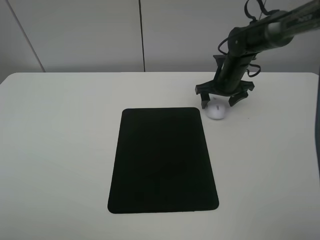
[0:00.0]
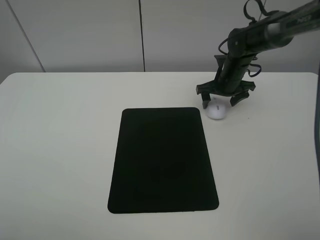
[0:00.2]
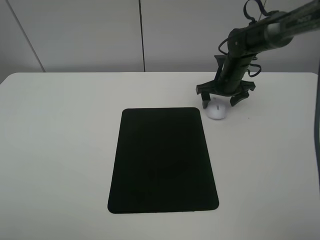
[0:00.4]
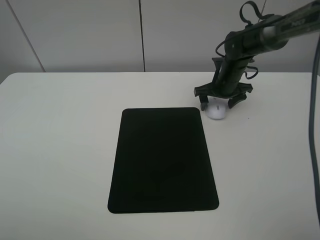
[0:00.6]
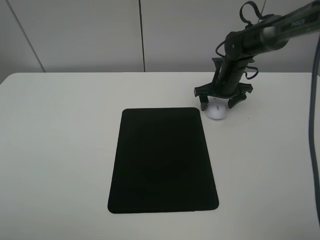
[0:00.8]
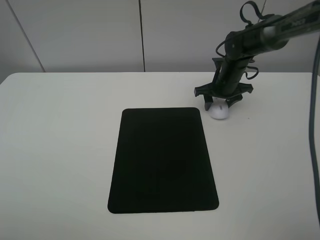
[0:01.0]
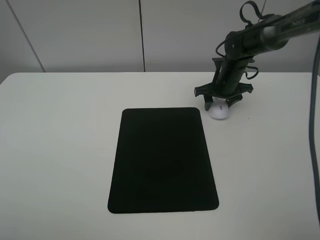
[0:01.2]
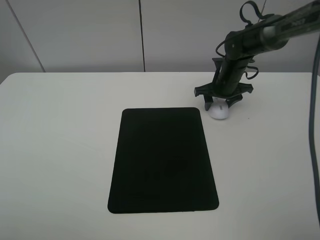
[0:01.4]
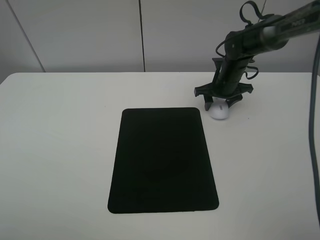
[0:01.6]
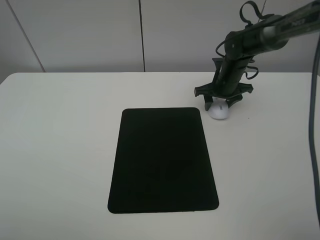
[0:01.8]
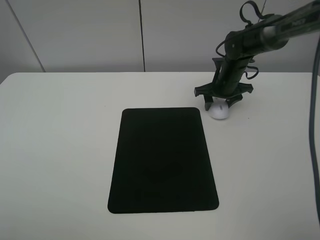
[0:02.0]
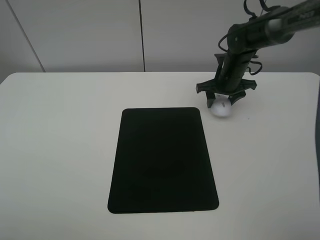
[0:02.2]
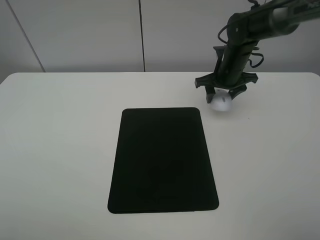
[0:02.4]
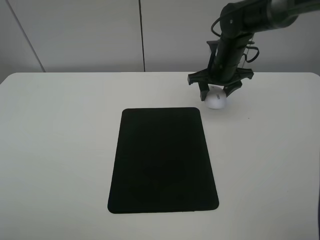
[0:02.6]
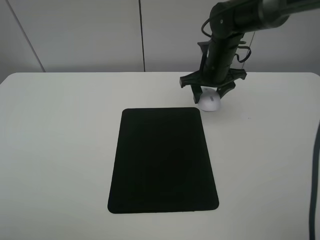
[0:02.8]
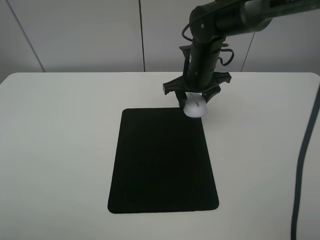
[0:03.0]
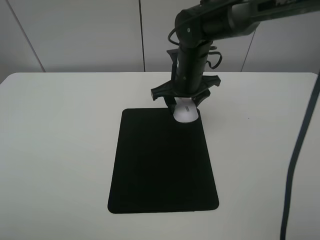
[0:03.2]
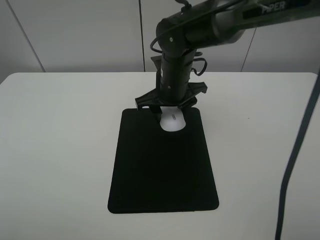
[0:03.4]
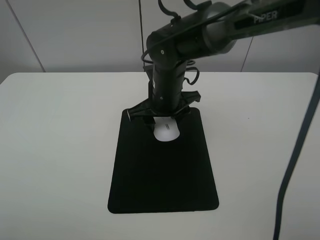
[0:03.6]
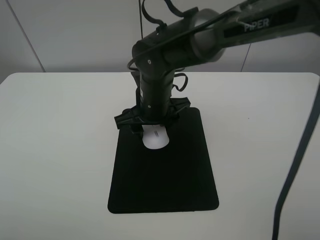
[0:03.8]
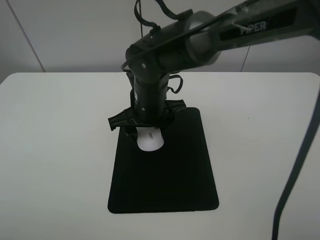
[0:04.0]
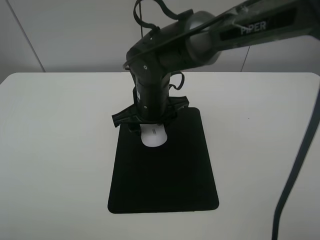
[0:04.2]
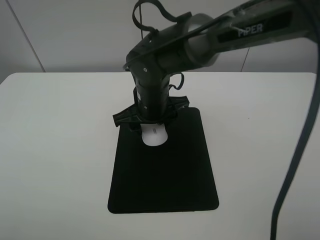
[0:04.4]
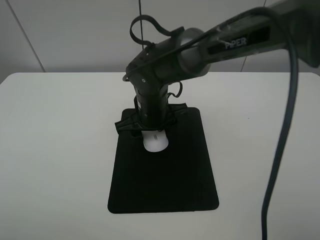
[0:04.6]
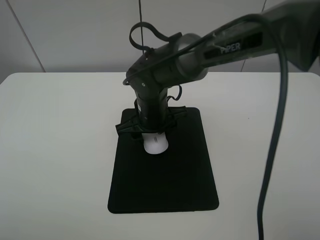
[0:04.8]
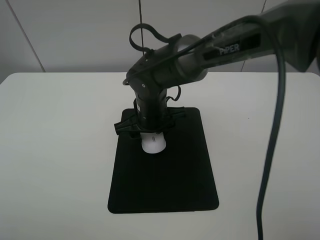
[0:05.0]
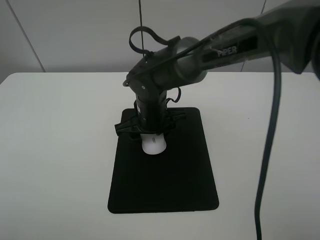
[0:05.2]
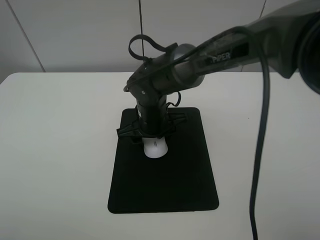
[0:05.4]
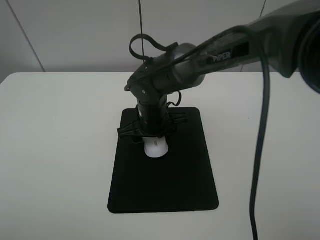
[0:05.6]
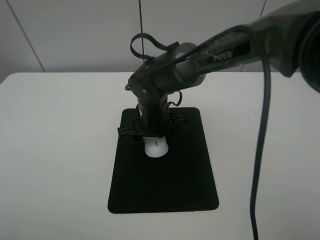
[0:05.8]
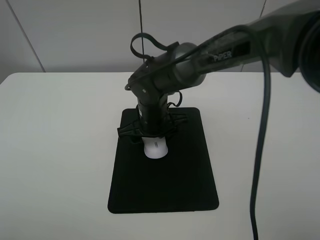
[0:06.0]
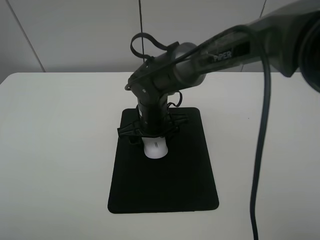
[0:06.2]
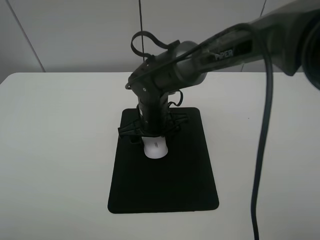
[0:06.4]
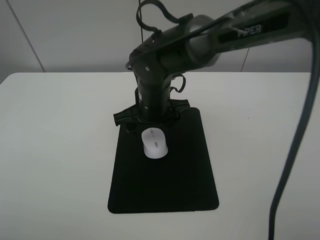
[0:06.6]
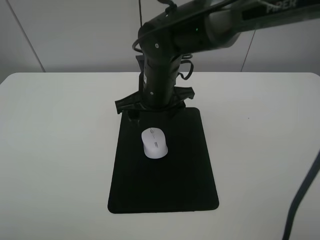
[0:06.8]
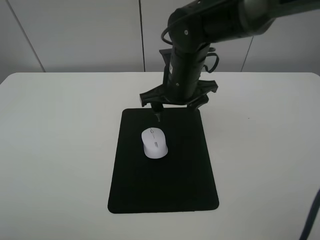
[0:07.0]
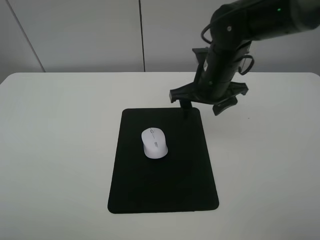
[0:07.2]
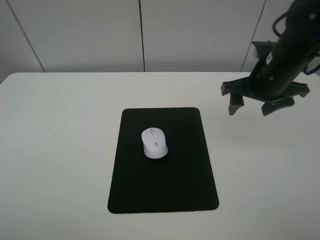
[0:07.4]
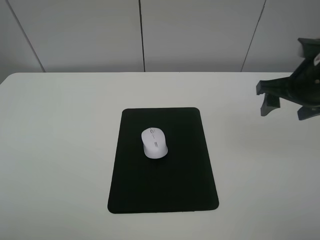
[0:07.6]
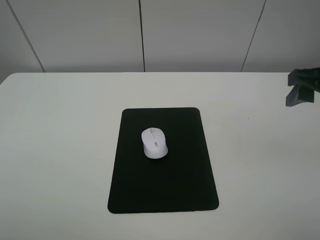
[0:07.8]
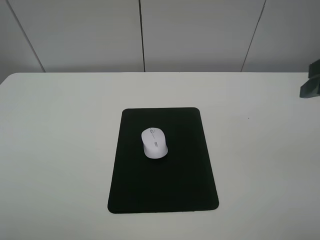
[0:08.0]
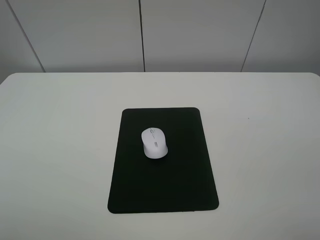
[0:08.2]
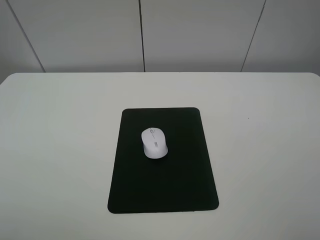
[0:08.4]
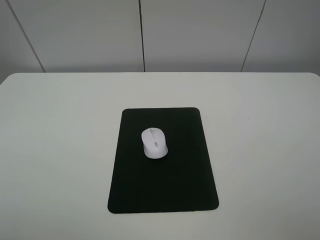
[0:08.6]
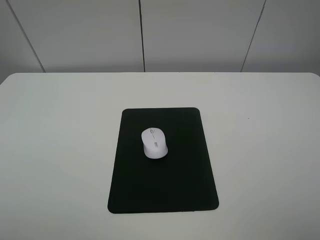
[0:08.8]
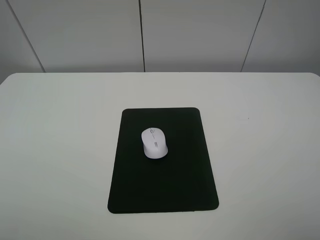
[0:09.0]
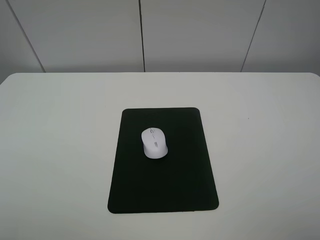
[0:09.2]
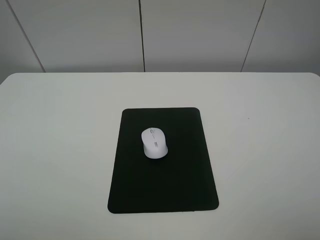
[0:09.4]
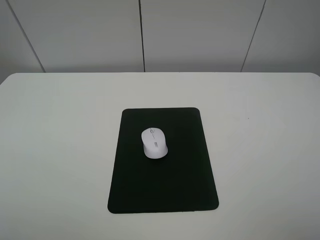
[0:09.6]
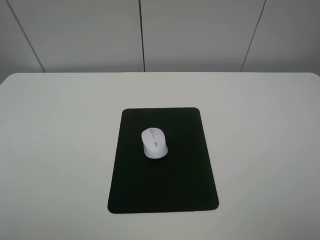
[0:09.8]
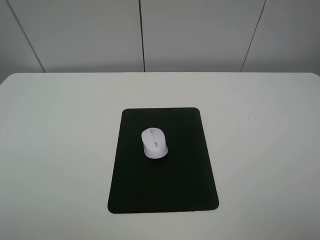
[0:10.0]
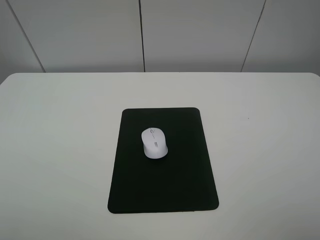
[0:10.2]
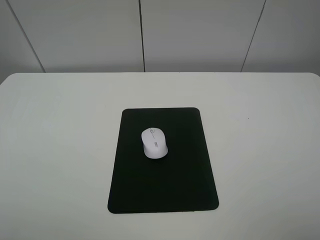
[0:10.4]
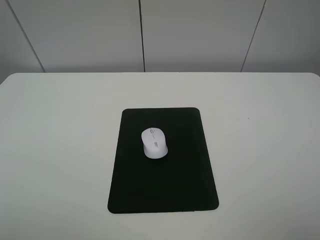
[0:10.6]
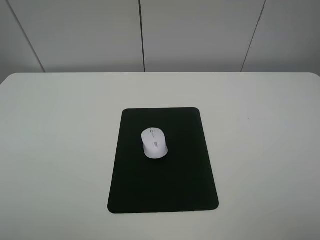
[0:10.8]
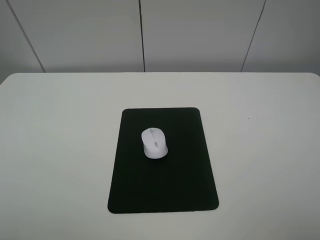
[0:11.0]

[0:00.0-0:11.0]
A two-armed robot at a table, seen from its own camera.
Step, 0:00.0 to 0:02.0: Grasp the mouse with the right gripper.
Step, 0:02.2 to 0:06.0: Place the mouse on the mouse mat with the right gripper.
0:00.0 to 0:01.6: The right gripper closes up.
0:01.6 to 0:03.2: The right gripper moves to the left, backward and upward, some 15 cm.
0:03.2 to 0:04.8: The right gripper moves to the left and backward, roughly 10 cm.
0:04.8 to 0:06.2: The right gripper opens up.
0:06.2 to 0:07.8: The right gripper moves to the right and upward, about 35 cm.
0:07.8 to 0:09.4: The right gripper moves backward, roughly 20 cm.

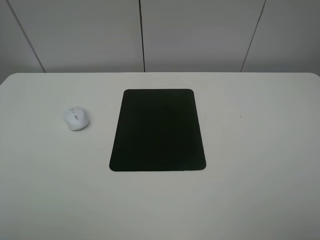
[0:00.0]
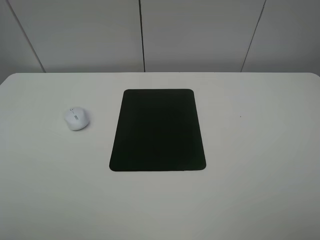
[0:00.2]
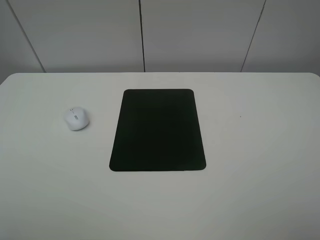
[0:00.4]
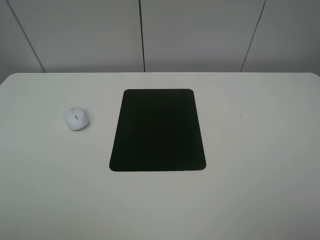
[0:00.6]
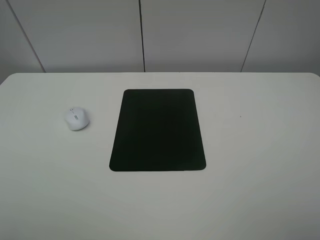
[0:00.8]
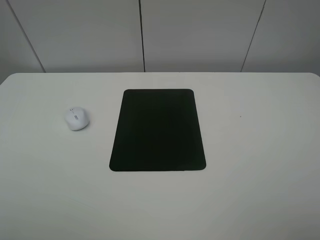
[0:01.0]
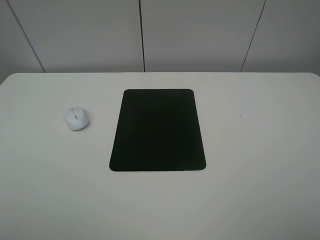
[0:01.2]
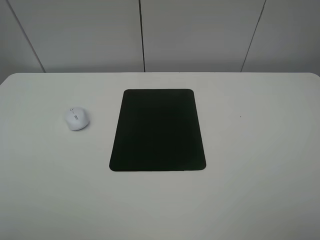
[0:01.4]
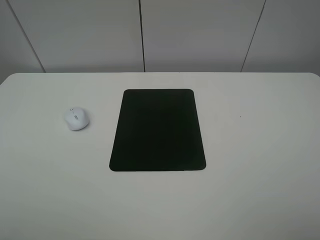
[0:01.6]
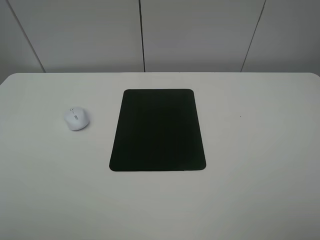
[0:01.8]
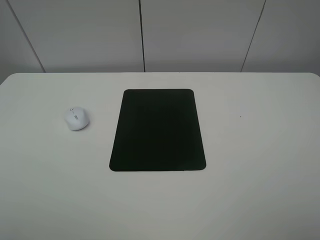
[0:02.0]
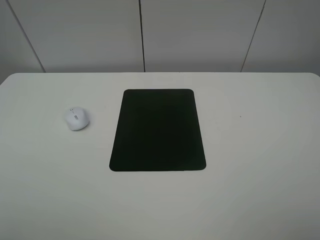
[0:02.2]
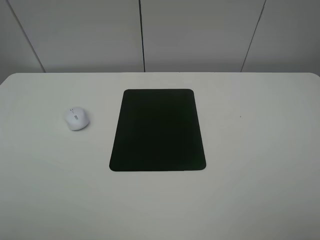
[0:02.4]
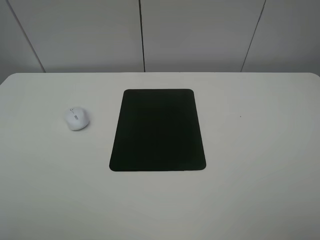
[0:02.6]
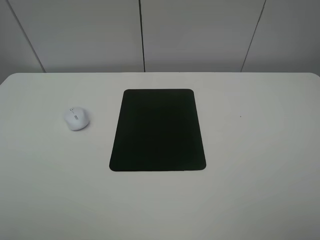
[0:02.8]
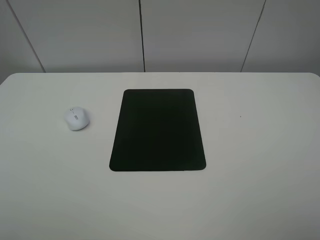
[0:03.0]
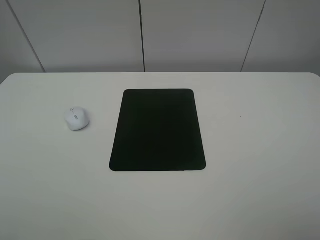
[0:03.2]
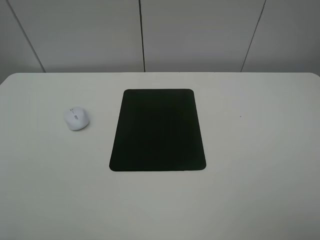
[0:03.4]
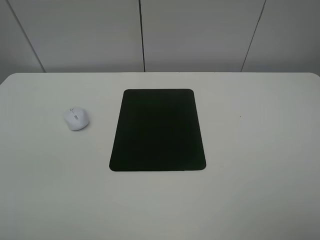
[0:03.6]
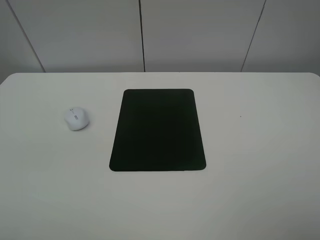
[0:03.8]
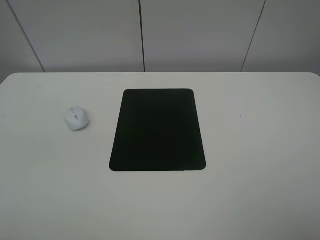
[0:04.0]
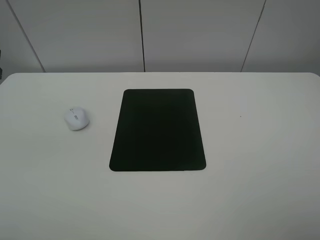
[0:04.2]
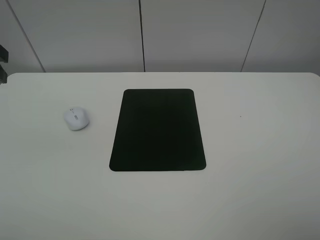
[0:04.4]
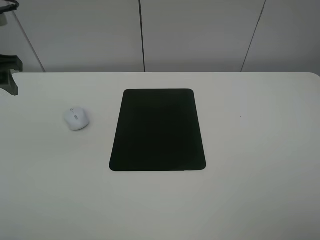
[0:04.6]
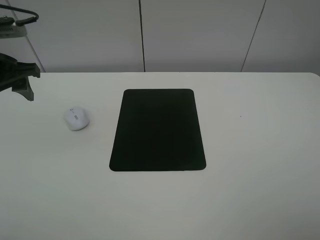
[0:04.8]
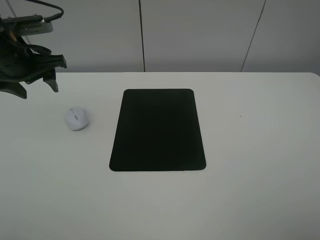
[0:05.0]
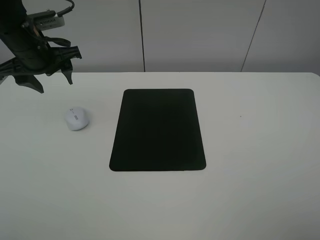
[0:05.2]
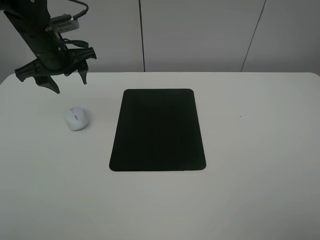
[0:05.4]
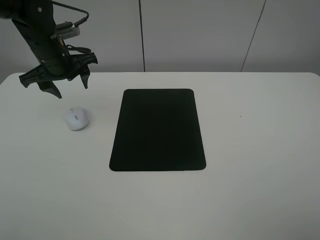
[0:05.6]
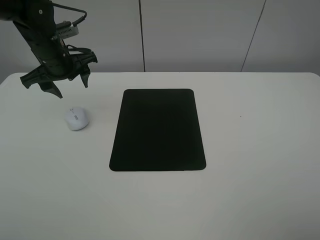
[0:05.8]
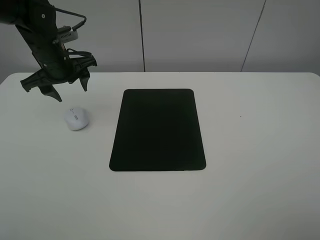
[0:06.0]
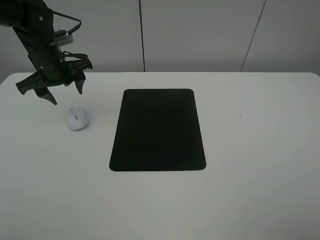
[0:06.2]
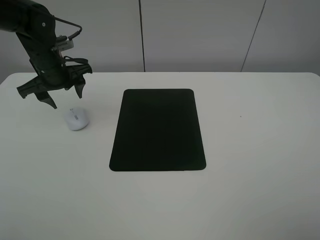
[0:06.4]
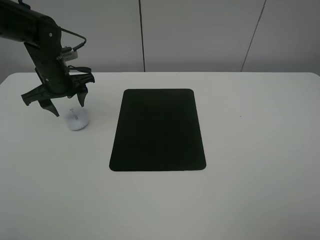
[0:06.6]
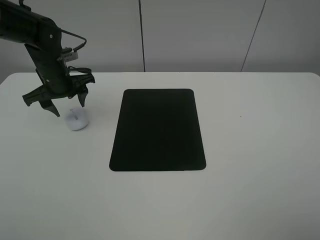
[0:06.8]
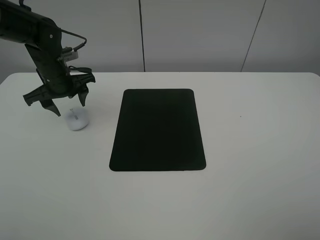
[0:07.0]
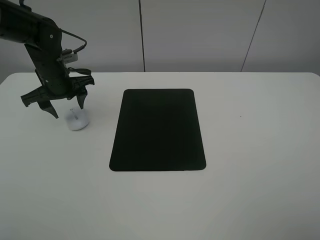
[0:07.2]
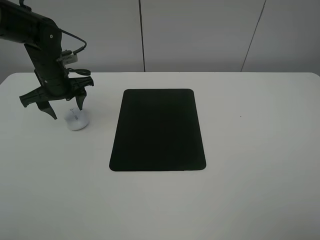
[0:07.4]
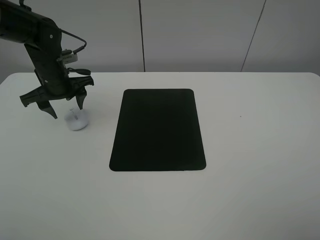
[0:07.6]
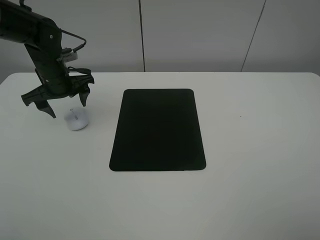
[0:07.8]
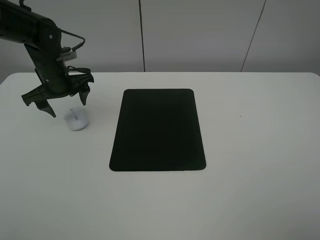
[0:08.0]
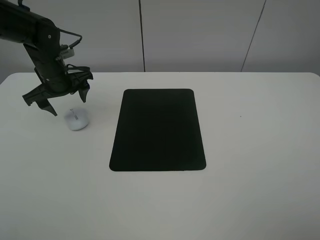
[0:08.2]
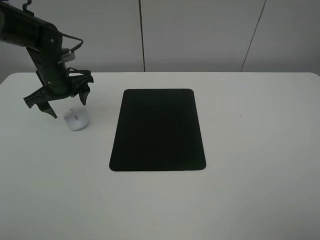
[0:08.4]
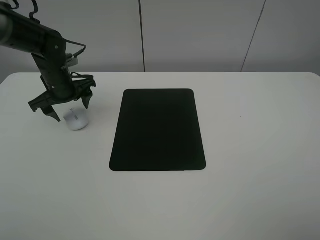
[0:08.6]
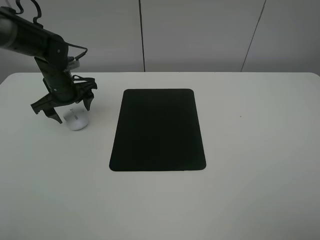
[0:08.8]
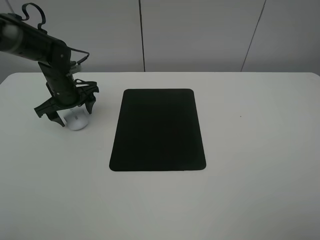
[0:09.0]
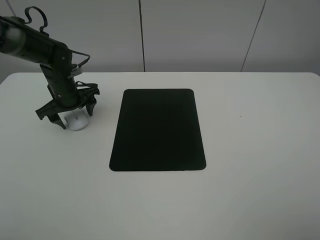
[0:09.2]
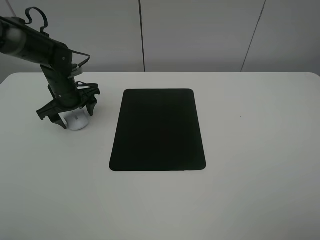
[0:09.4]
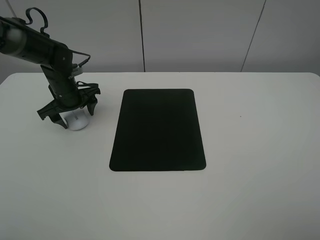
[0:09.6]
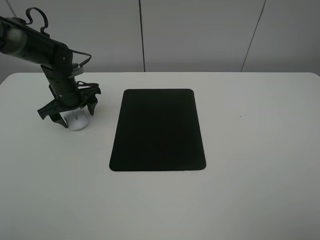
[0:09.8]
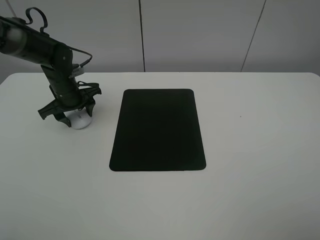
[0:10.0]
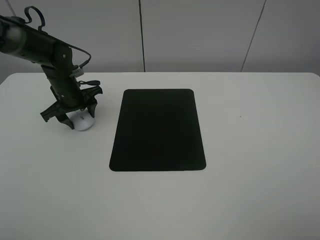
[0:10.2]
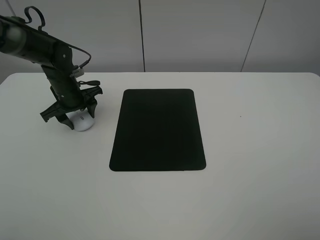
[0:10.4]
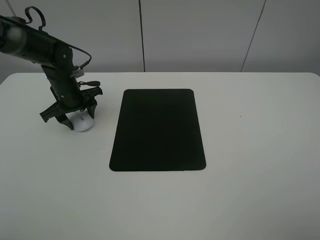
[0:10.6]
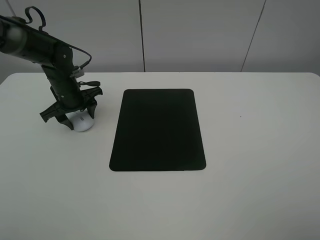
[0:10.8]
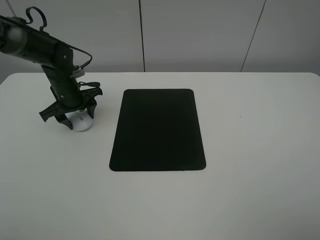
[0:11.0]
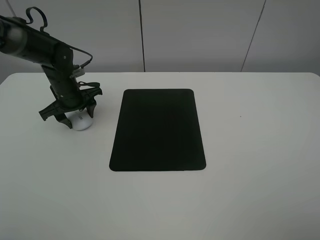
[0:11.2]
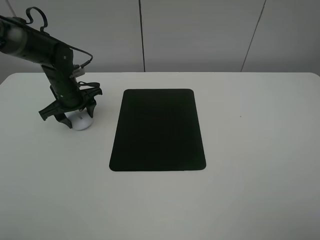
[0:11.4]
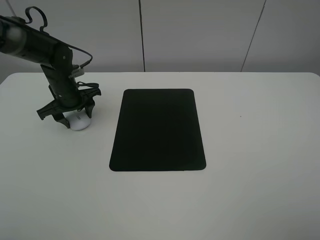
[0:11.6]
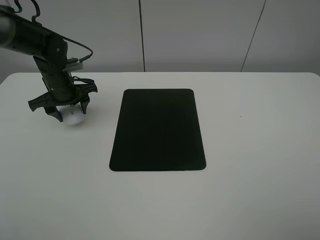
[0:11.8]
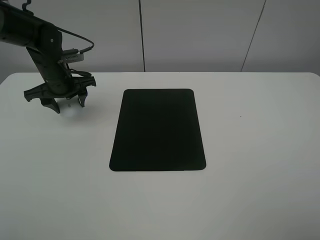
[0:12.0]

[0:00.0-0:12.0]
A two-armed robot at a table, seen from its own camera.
Step, 0:00.0 to 0:10.4: Grasp the mouse with the left gripper.
0:04.4 to 0:06.0: The left gripper is displaced forward, downward and to the right by some 20 cm.
0:06.0 to 0:07.6: The grippers move only a little.
0:07.6 to 0:09.0: The left gripper opens its fingers.
0:09.0 to 0:10.4: The left gripper closes up.
0:10.4 to 0:12.0: The left gripper ends up roughly 5 cm from where it was.
